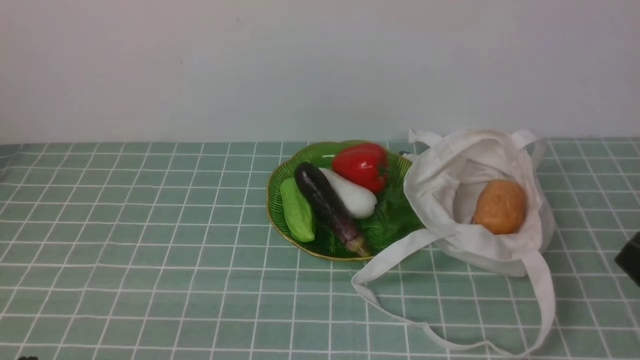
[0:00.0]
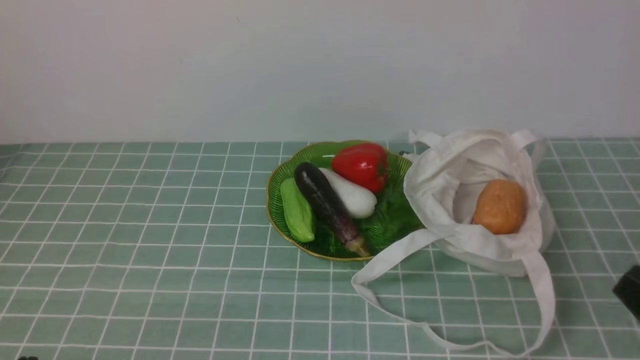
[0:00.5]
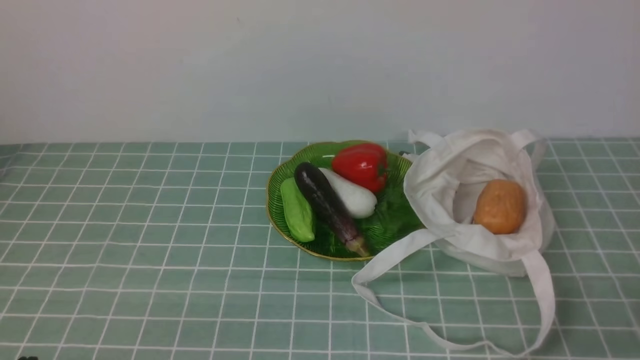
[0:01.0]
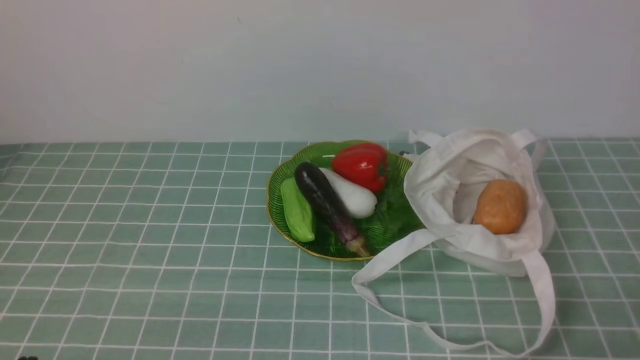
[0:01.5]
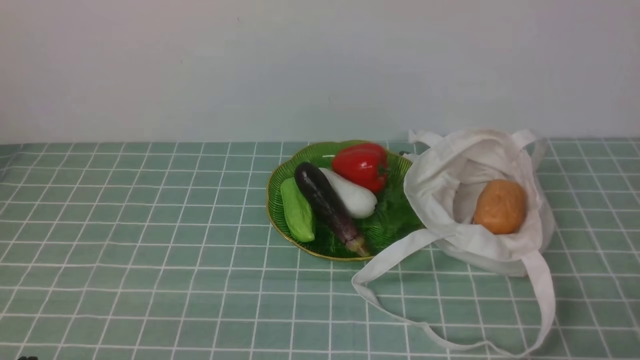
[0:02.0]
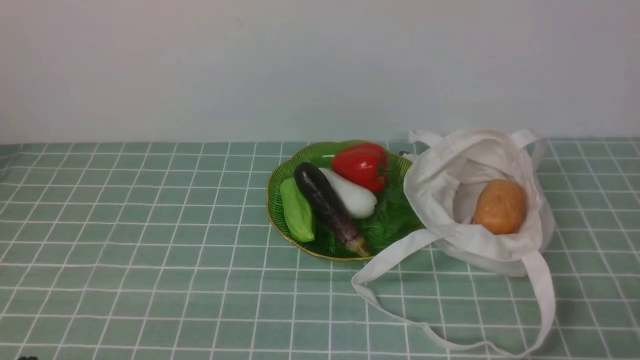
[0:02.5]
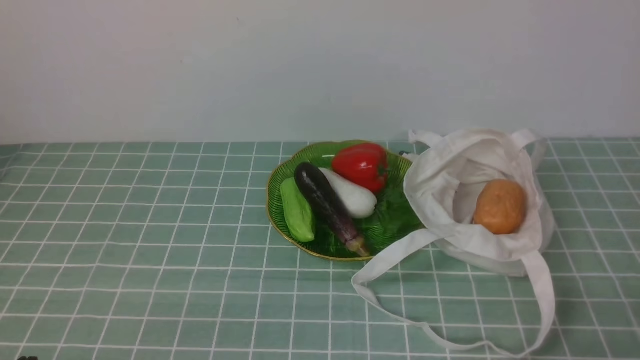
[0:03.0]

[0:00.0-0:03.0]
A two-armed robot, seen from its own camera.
Task of the whole recording: take vegetables from cloth bag on blue coffee tablecloth place on plate.
0:01.5 to 0:03.0: Neither gripper changes place.
